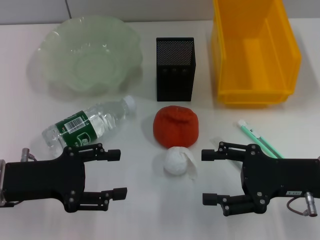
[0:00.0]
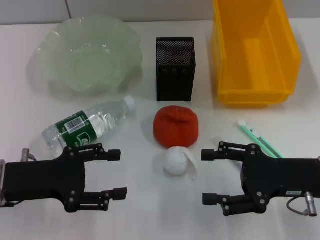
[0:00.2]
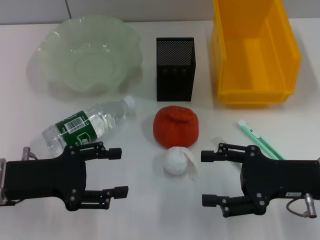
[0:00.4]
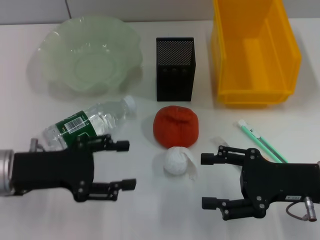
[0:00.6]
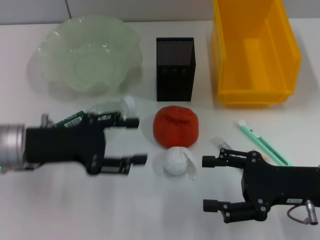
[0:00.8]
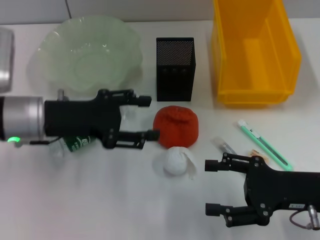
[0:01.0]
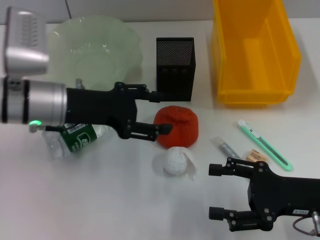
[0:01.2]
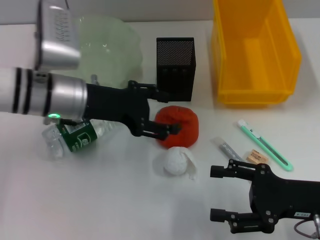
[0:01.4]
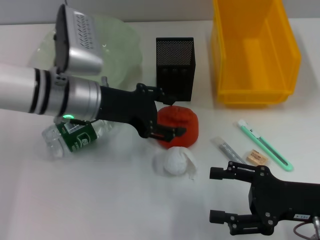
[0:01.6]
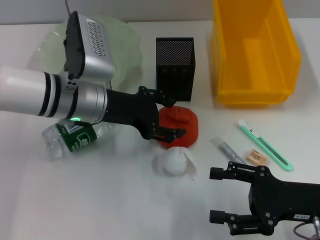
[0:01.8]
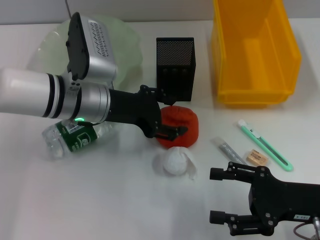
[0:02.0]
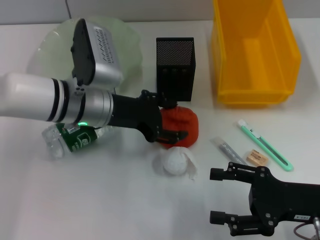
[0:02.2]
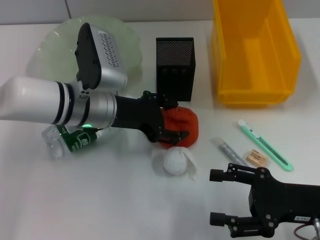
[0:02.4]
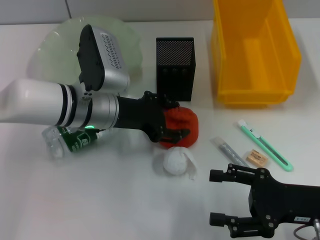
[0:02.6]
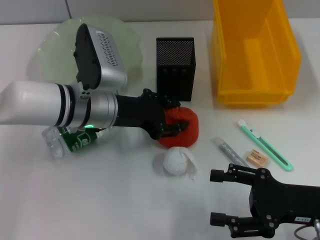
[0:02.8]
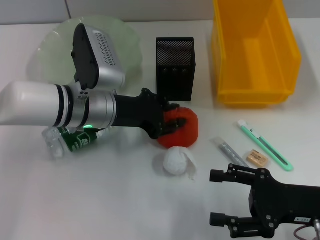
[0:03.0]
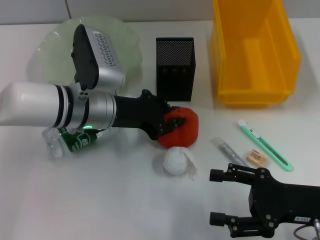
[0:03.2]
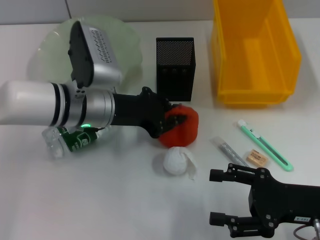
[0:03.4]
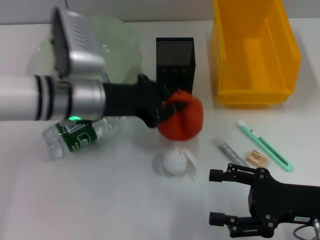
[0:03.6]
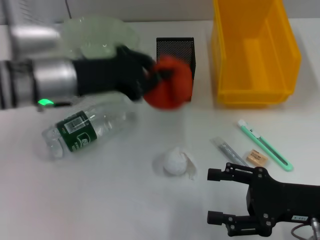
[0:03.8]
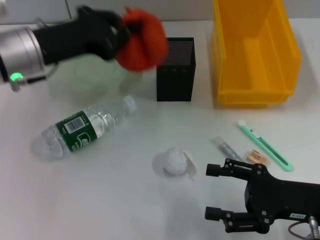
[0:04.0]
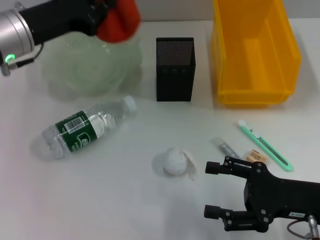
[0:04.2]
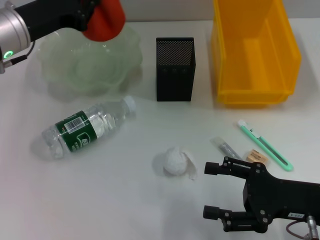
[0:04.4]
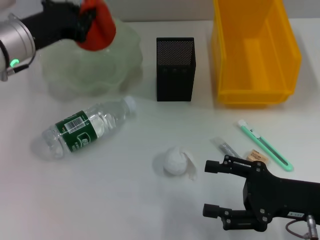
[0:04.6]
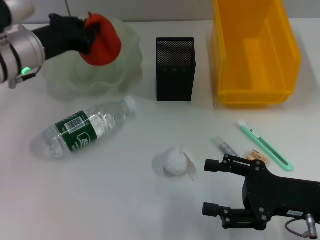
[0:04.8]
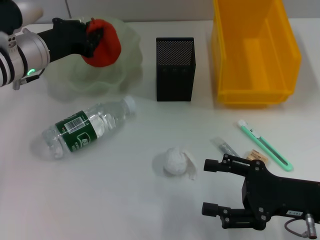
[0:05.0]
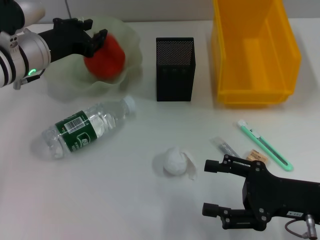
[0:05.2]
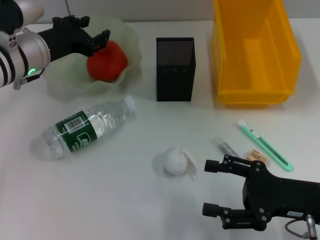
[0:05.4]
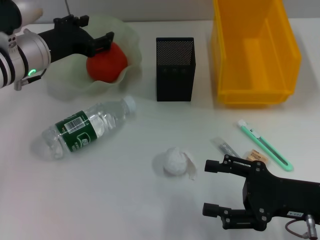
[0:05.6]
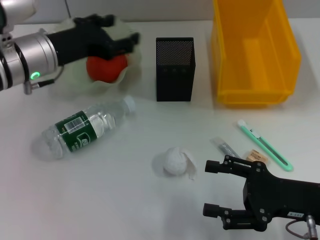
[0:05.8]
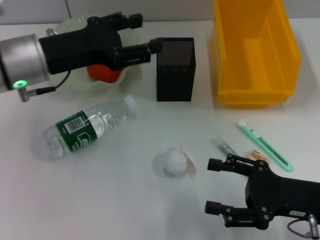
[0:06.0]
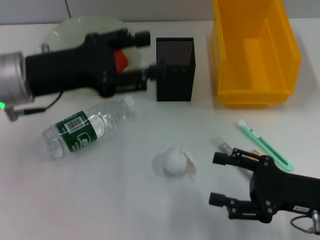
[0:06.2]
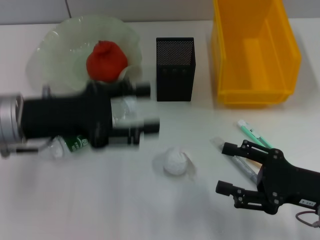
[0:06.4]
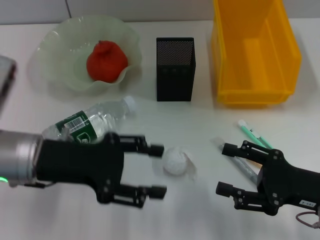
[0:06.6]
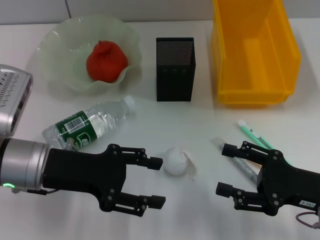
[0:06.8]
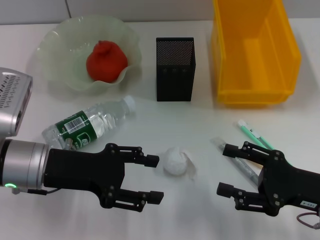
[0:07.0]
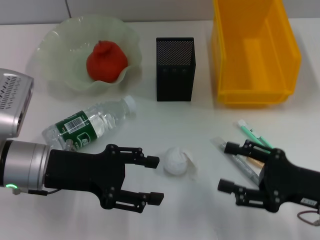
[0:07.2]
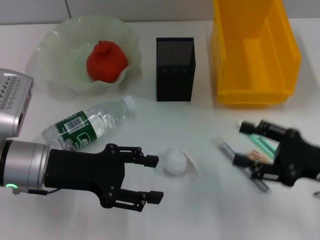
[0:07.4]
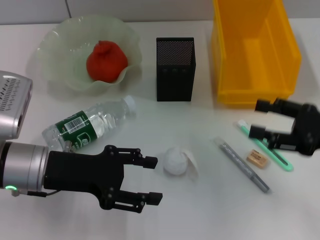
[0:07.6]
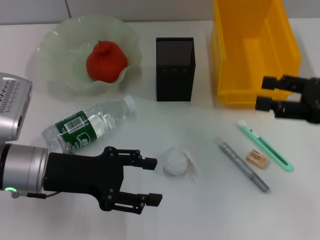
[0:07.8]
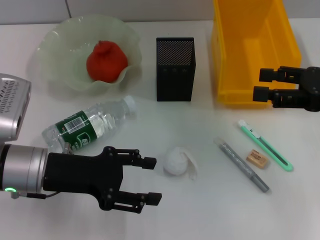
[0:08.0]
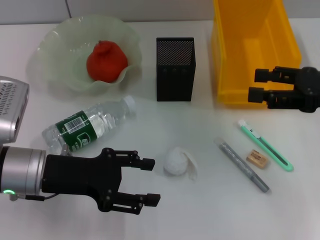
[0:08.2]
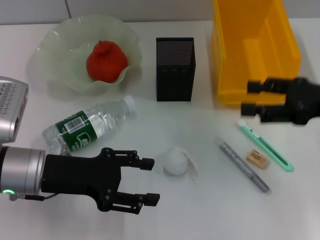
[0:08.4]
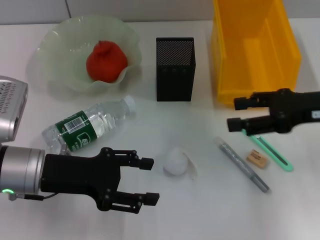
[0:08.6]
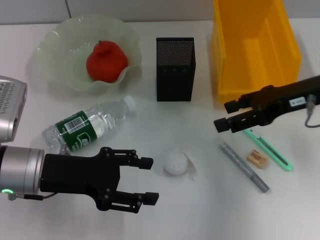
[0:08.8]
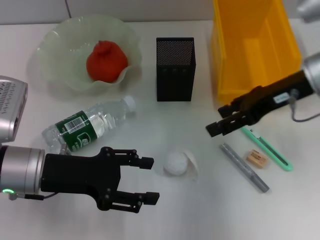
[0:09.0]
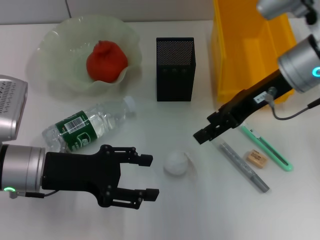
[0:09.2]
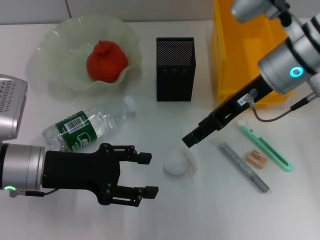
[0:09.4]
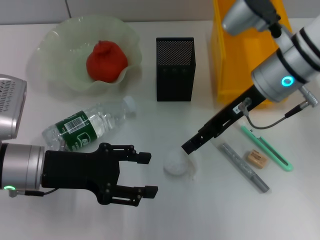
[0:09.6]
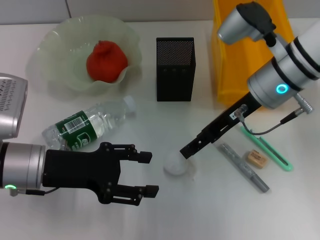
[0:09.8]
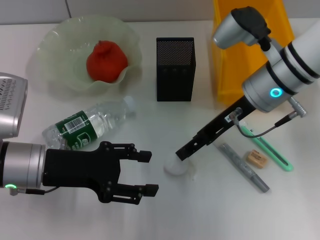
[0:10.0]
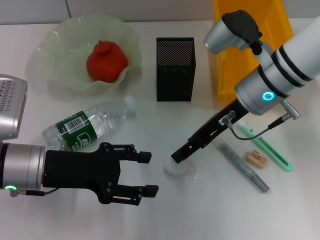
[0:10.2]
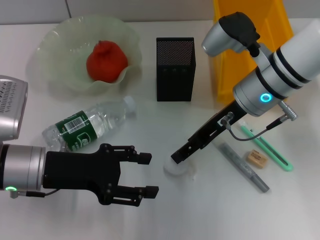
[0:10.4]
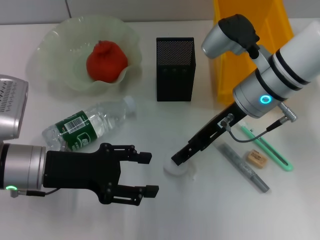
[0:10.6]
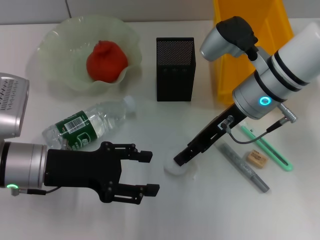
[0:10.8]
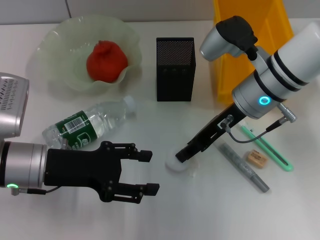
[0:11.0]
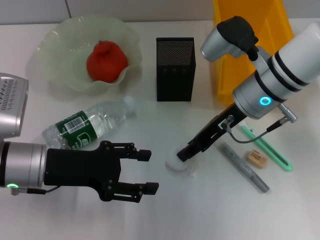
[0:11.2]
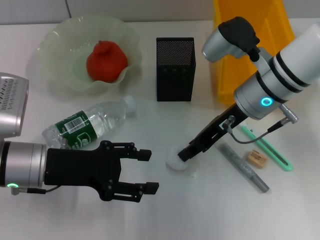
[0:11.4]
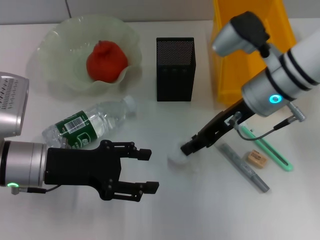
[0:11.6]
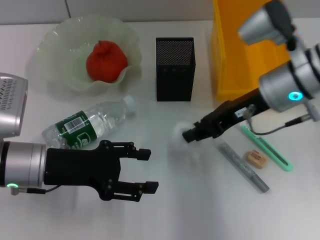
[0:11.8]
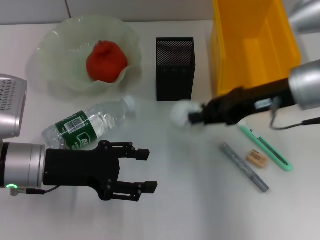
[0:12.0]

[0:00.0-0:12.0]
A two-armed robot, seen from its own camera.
Step, 0.0 to 3.0 s: Grab the orange with the left hand.
Step, 3.4 to 5.4 s: Place the orange into the fruit bowl with the left hand.
Step, 5.6 to 11.2 s: Grab the paper ball with the right hand.
0.0 to 1.6 s: The left gripper moves to the right and forward, about 15 cm.
1.6 to 3.0 s: The grippers stay close to where they were, moving slightly.
3.0 to 4.4 s: The left gripper is displaced to the left and upward by approximately 10 cm, and closes its fingers.
4.4 to 6.0 s: The left gripper opens up.
6.0 to 7.6 s: The right gripper travels upward, to the right and forward by roughly 10 cm. Meanwhile the left gripper heads downward and backward, covering roughly 10 cm.
7.6 to 9.0 s: The right gripper is displaced forward, to the left and upward by some 15 cm.
9.0 to 10.4 s: The right gripper travels to the left by some 10 cm.
10.4 to 12.0 s: The right gripper moves to the right, about 5 cm, and closes its fingers.

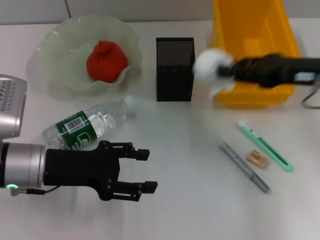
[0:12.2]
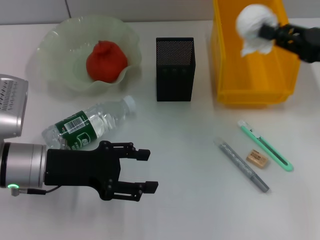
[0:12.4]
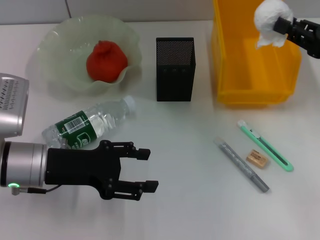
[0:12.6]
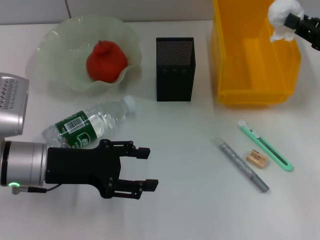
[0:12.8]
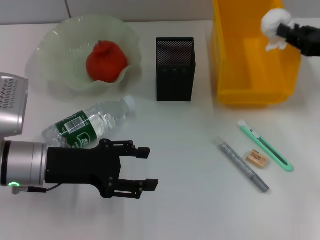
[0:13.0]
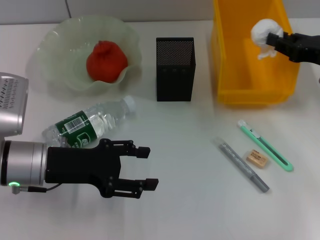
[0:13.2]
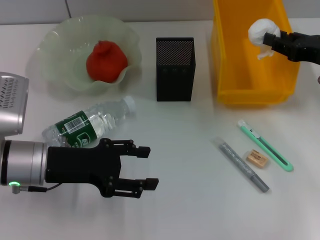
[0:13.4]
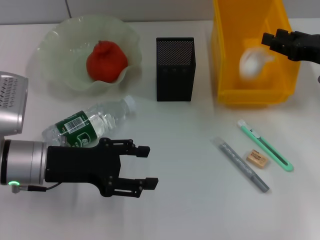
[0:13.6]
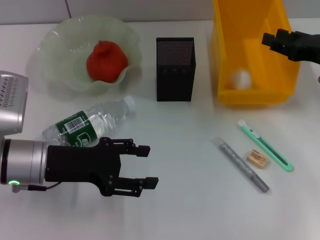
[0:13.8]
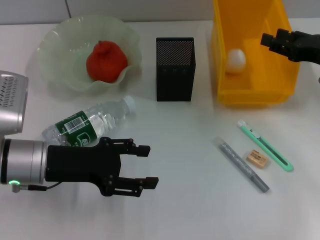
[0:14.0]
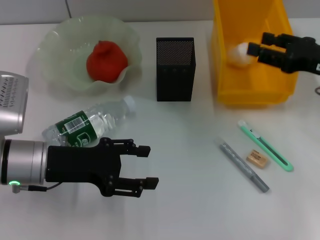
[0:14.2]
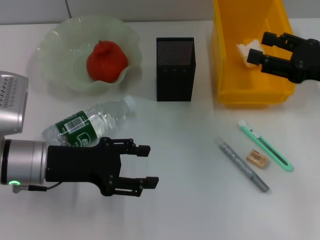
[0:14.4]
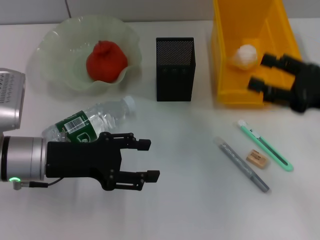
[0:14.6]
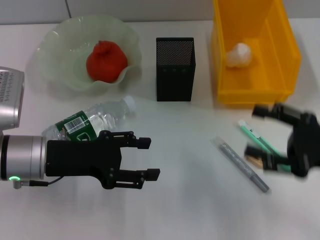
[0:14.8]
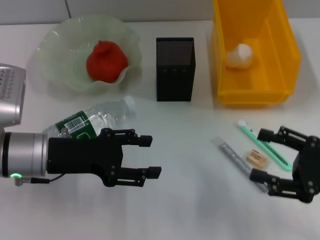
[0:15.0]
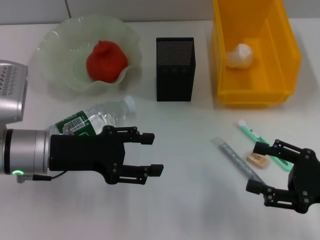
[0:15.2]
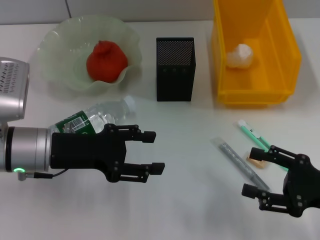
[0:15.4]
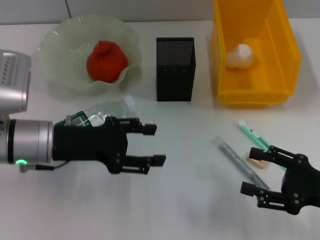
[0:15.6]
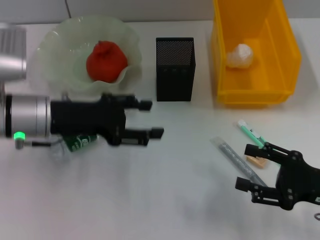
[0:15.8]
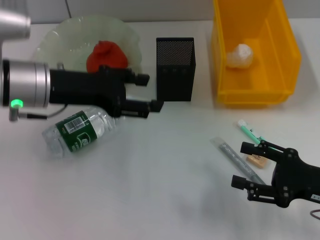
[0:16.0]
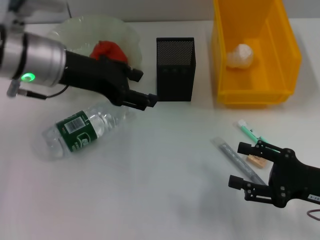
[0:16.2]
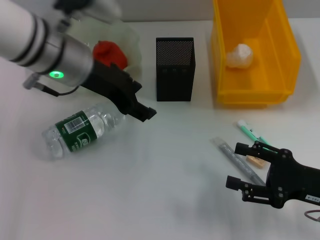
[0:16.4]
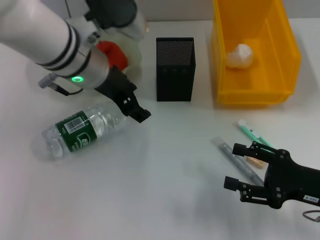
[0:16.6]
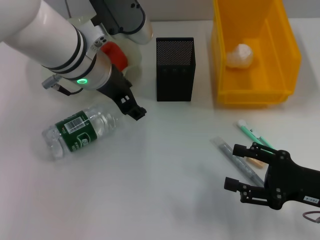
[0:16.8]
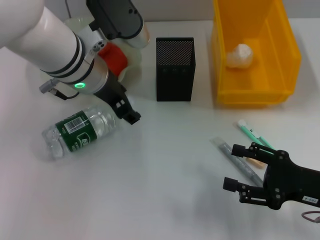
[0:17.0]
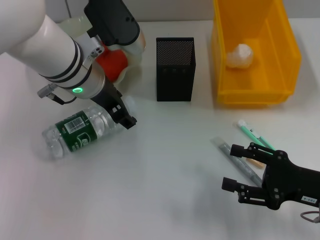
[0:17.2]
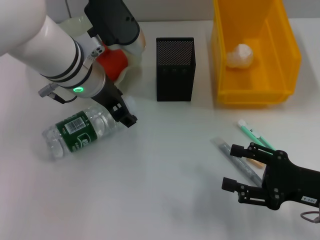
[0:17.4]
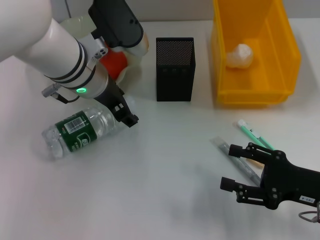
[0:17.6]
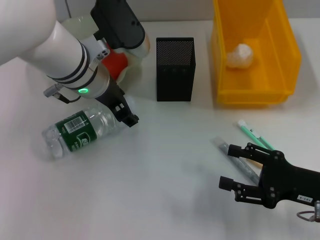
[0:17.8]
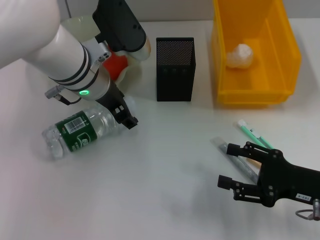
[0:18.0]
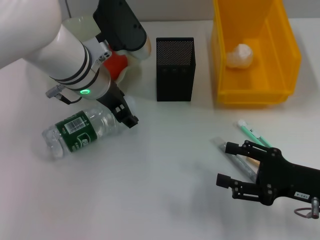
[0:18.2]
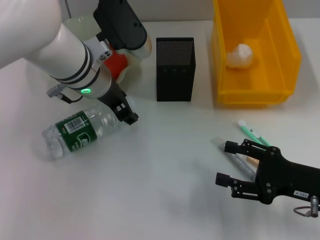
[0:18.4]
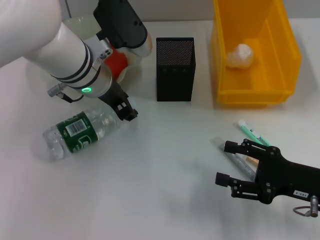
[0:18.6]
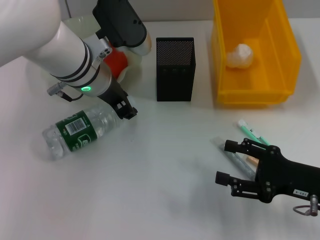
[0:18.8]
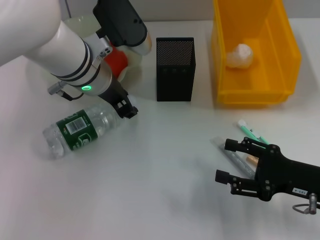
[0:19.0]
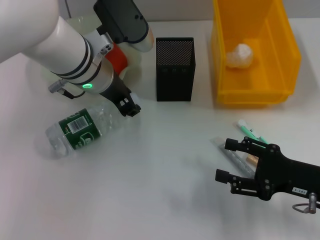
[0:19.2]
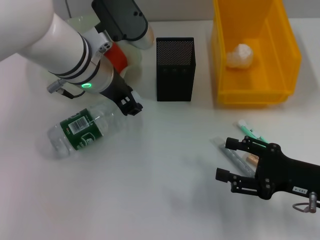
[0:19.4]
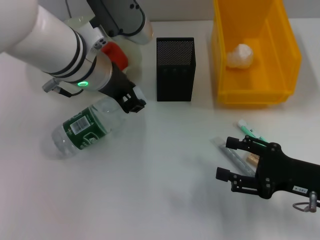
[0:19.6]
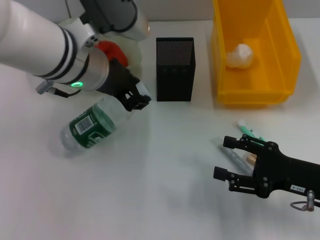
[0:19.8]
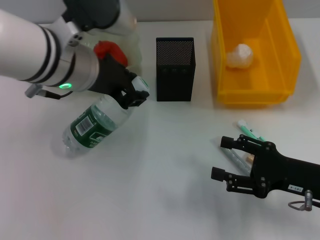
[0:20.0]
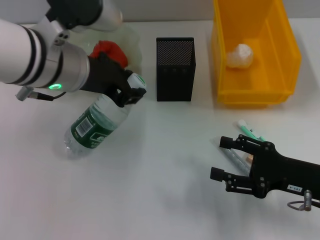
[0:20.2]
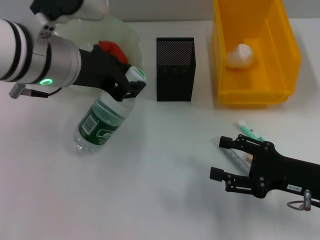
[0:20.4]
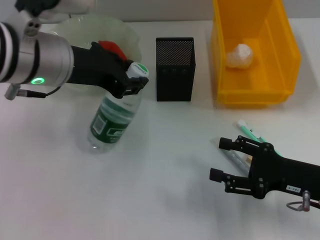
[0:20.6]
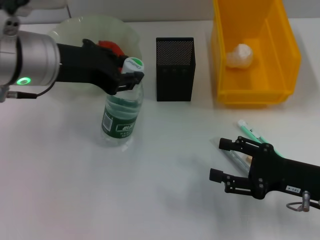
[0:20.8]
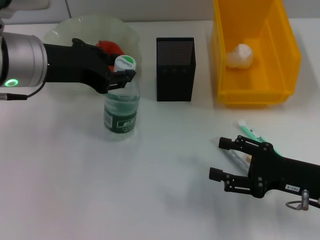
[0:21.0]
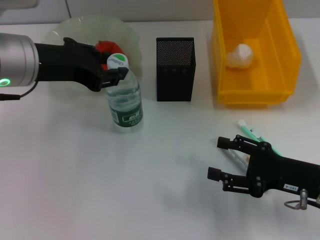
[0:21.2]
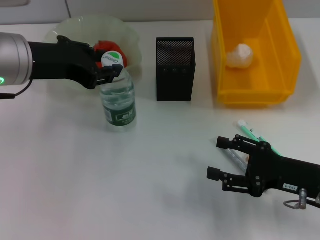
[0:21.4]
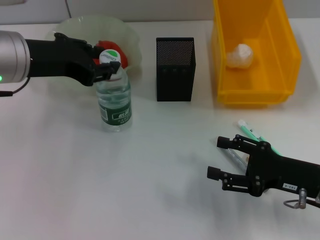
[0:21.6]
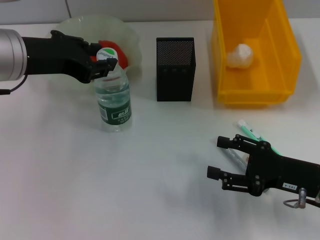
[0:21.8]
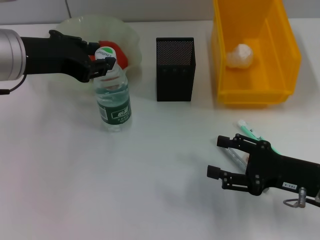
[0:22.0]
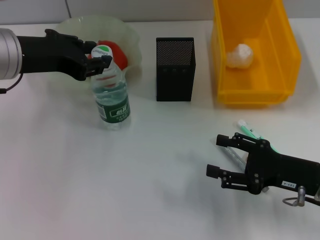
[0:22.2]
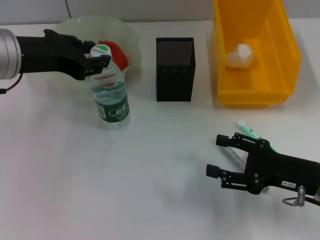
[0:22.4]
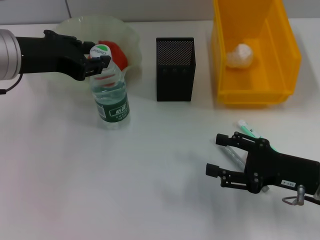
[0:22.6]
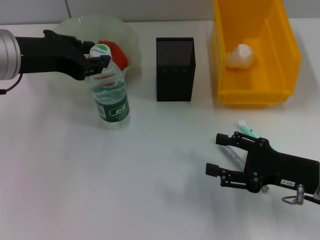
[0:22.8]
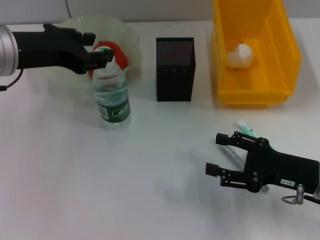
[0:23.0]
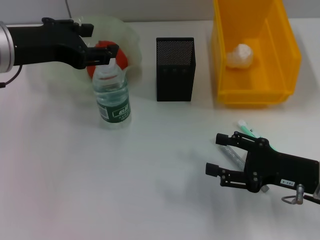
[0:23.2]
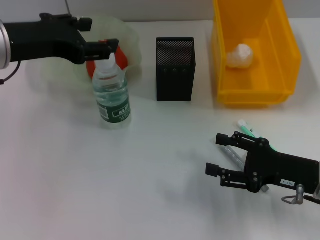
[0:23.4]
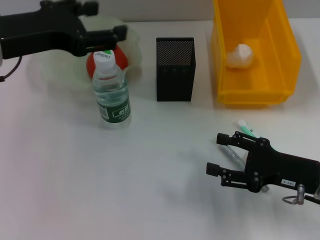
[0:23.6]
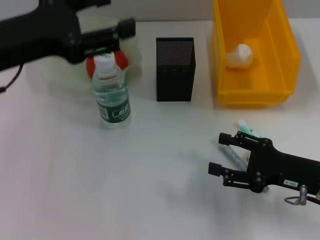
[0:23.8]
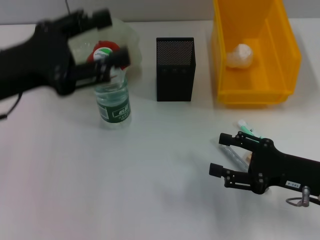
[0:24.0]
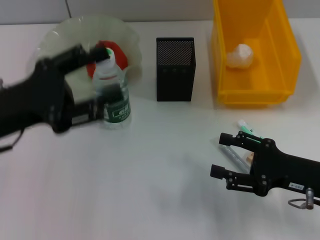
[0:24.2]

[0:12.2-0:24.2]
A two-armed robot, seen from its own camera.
Step, 12.2 to 14.0 s: Place the paper ball into the trash can with the right hand.
Step, 14.2 to 18.8 s: Grab the water bottle with the left hand.
Step, 19.0 to 23.0 s: Place the water bottle on the table with the left hand.
12.2 to 13.8 s: The right gripper ends up about 5 cm from where it was.
13.8 to 15.2 s: The right gripper shifts roughly 15 cm backward, and opens up.
15.2 to 16.6 s: The left gripper travels to the right, upward and forward by some 15 cm.
16.6 to 18.2 s: The grippers make only small movements.
18.2 to 19.8 s: The left gripper shifts about 5 cm upward, and closes its fingers.
19.8 to 21.2 s: The left gripper travels to the left by approximately 10 cm.
21.2 to 22.6 s: There are only small adjustments of the grippers.
22.6 to 24.2 s: The left gripper travels downward and backward by some 10 cm, and opens.
